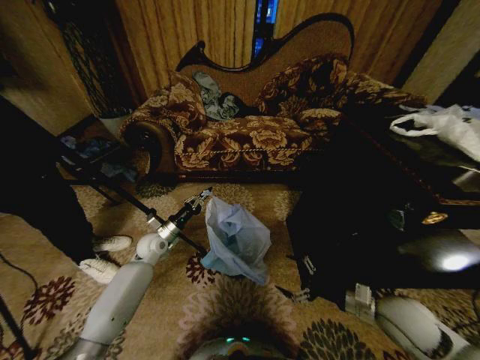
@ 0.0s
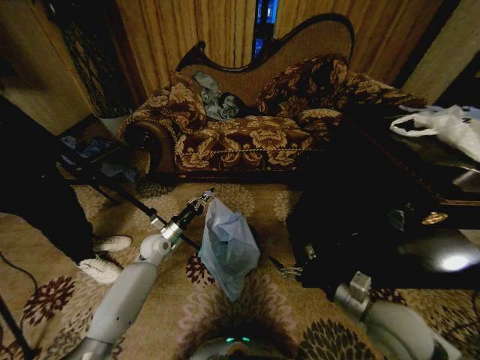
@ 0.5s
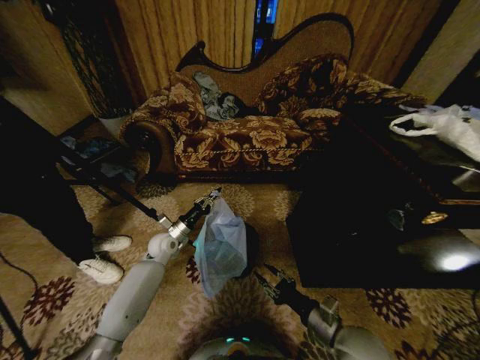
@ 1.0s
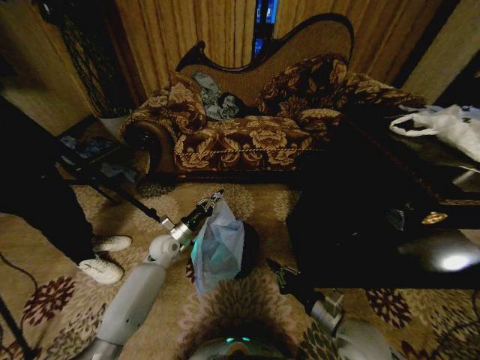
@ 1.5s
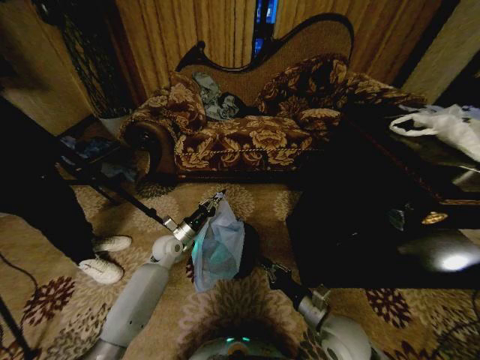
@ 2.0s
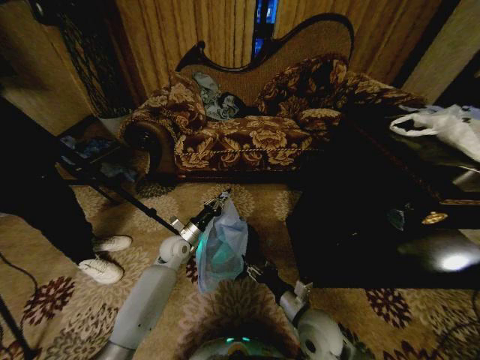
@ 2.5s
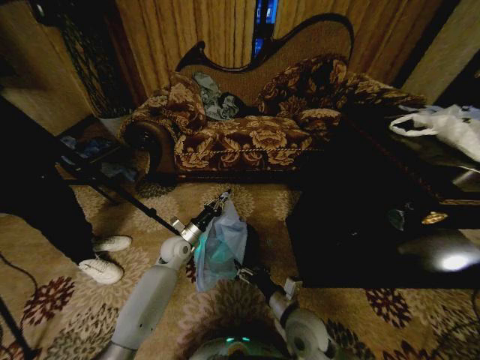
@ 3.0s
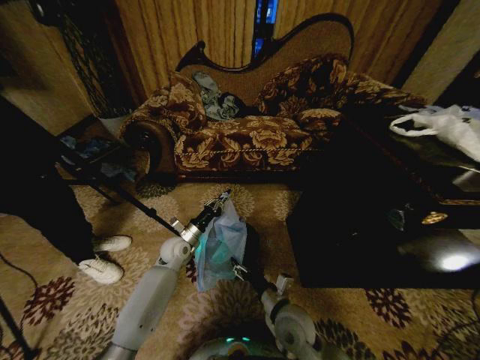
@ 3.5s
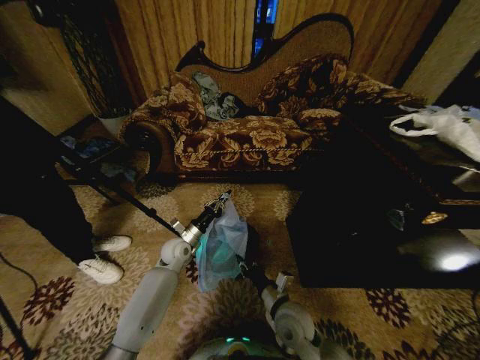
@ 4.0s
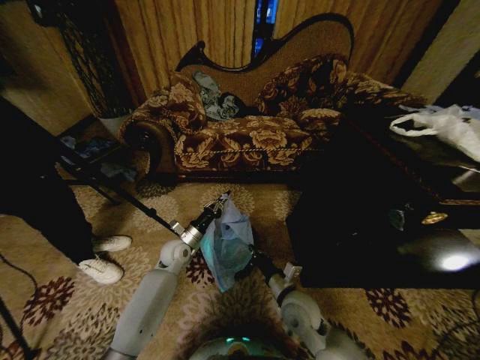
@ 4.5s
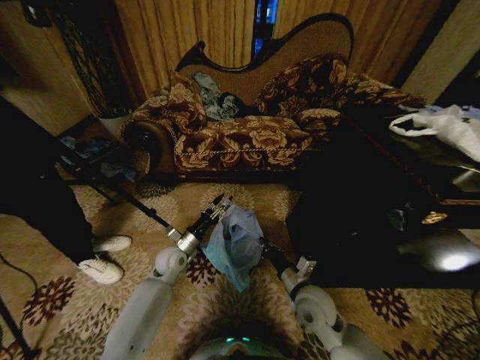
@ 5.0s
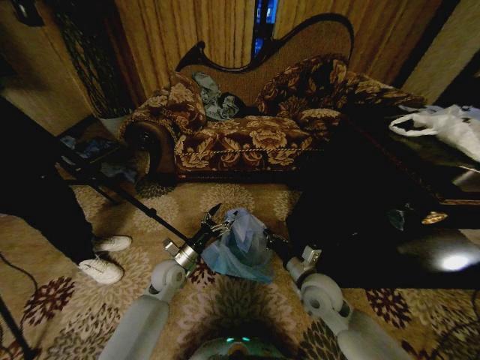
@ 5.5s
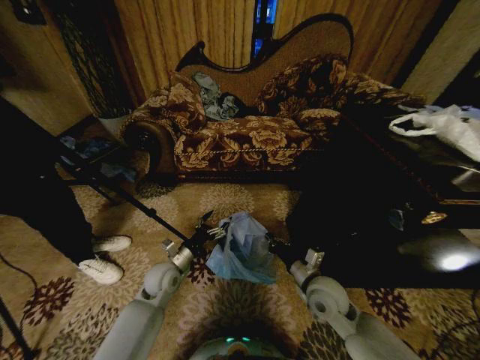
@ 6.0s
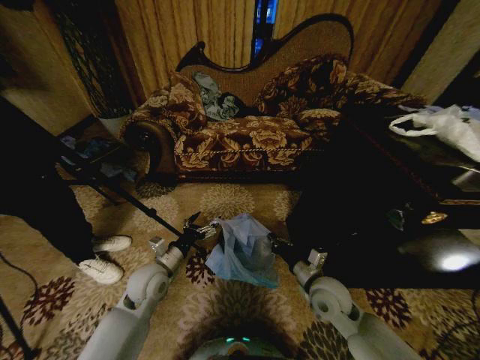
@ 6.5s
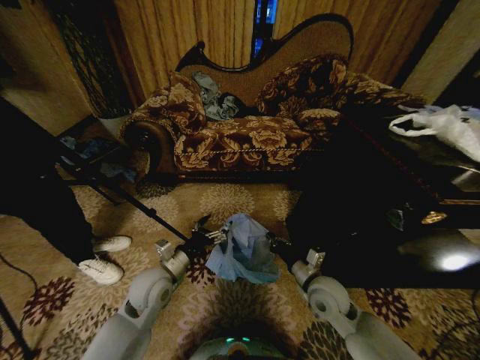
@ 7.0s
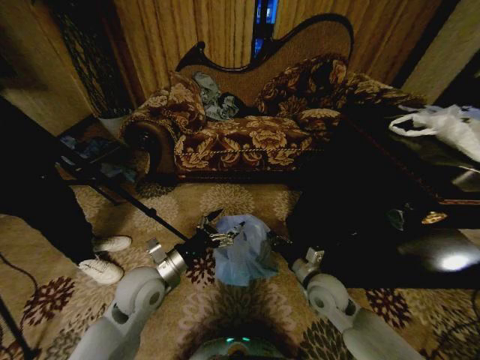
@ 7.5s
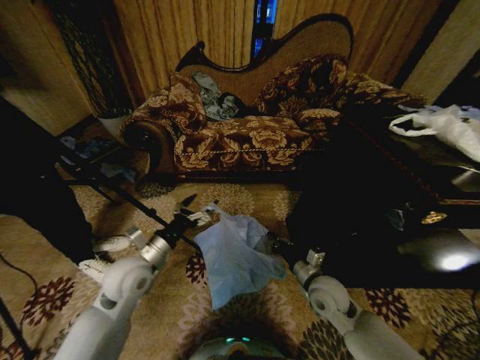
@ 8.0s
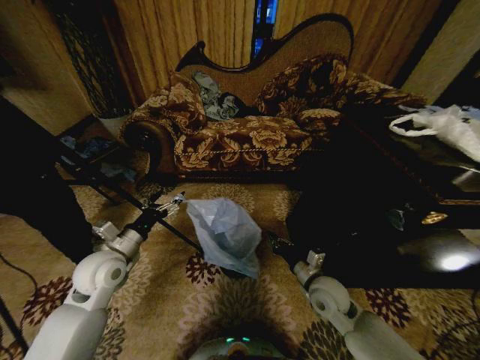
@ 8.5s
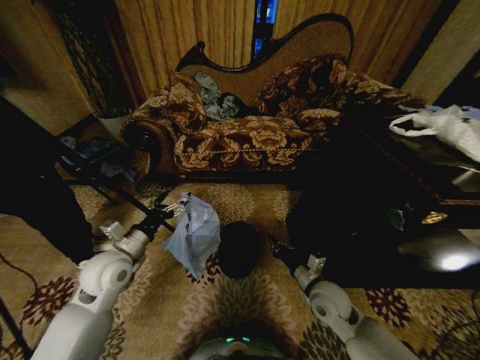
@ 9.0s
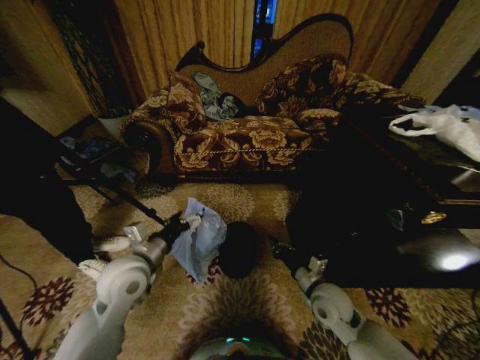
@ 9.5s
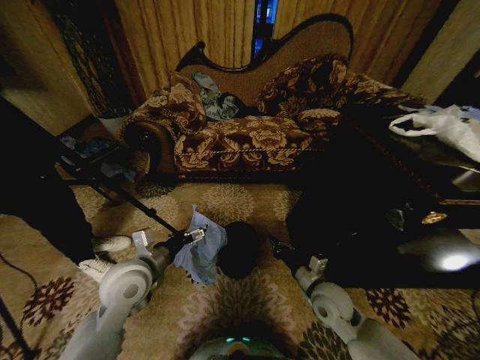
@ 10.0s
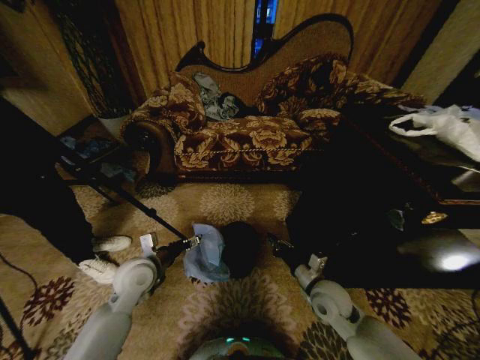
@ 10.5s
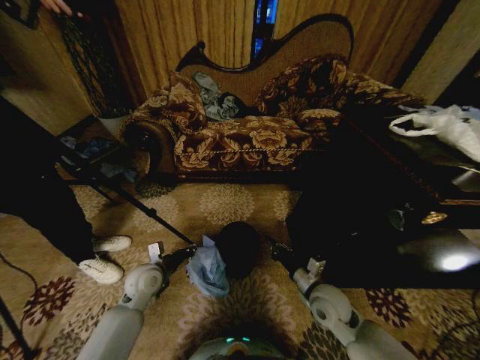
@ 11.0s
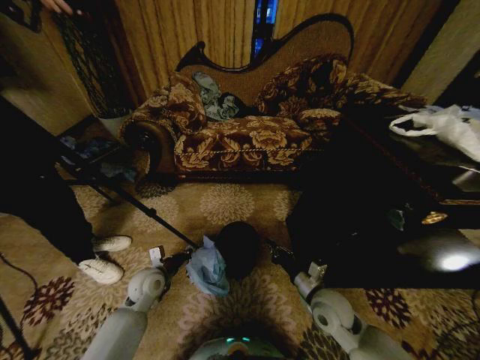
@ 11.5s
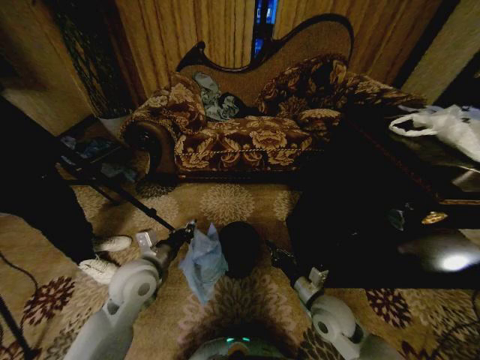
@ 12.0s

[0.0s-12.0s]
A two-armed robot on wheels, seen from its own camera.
Task of the whole recording: Place a garbage bag over the trash bin.
0.0s to 2.0s: The left gripper moves to the right, about 5 cm. Meanwhile the right gripper shifts roughly 15 cm to the left and downward, and closes.
2.0s to 4.0s: The right gripper travels to the left by roughly 10 cm, and opens up.
4.0s to 6.0s: The right gripper shifts some 10 cm to the right and upward, and closes. Meanwhile the left gripper heads backward, covering roughly 10 cm, and opens its fingers.
6.0s to 8.0s: The left gripper heads upward, covering roughly 10 cm.
8.0s to 10.0s: The left gripper reaches approximately 10 cm to the left, then returns.
10.0s to 12.0s: The left gripper goes downward and returns, approximately 15 cm each way, and closes up.

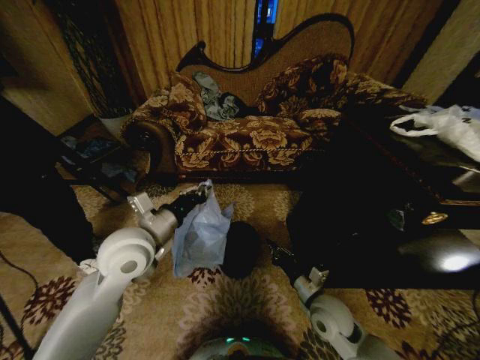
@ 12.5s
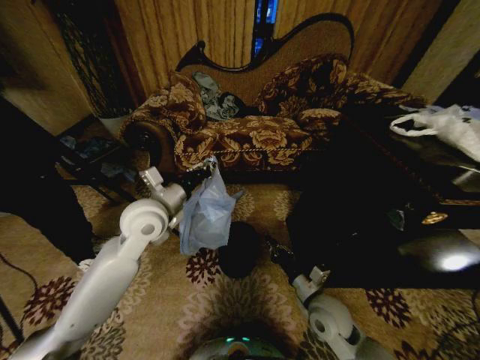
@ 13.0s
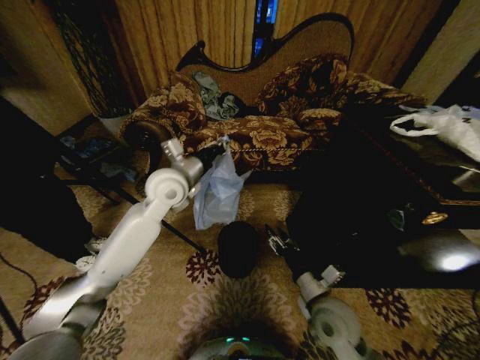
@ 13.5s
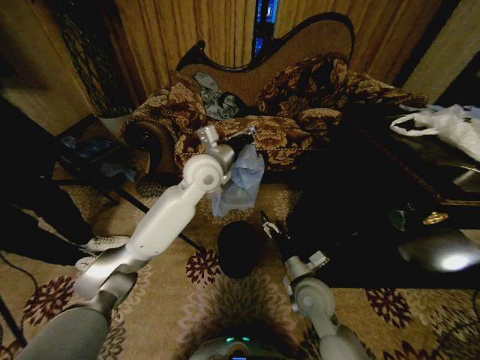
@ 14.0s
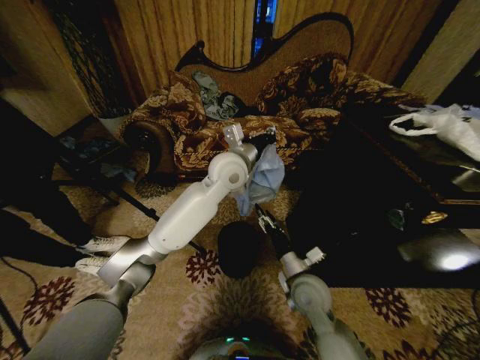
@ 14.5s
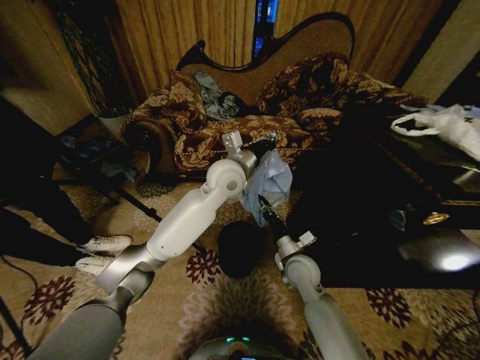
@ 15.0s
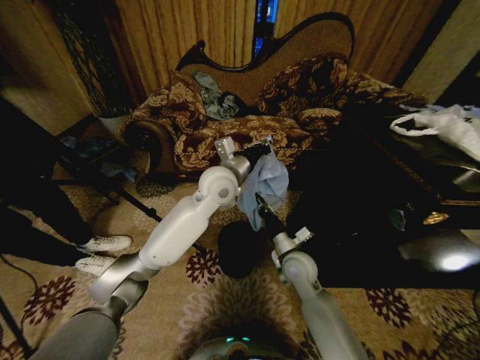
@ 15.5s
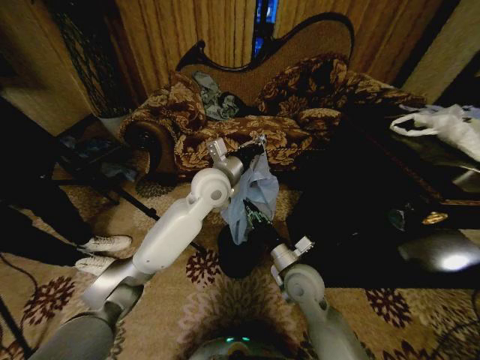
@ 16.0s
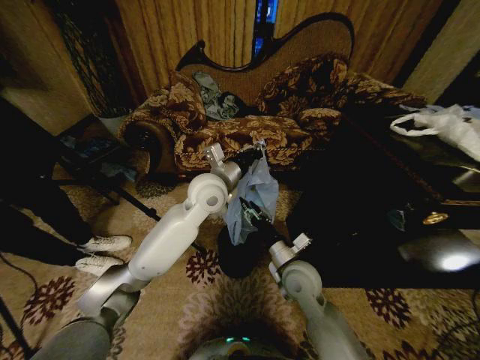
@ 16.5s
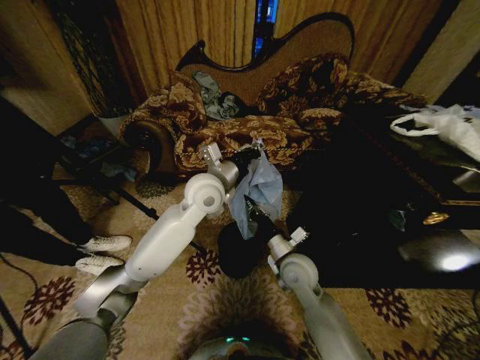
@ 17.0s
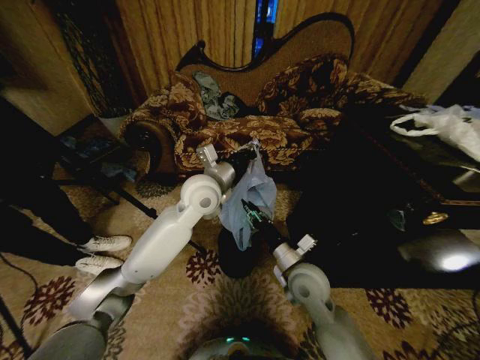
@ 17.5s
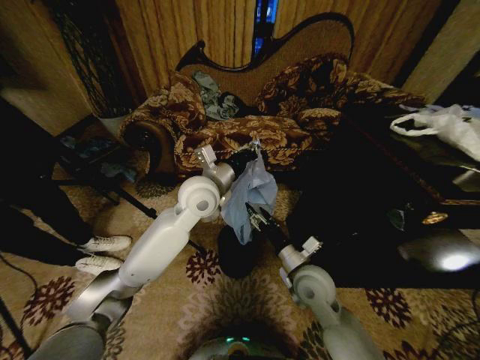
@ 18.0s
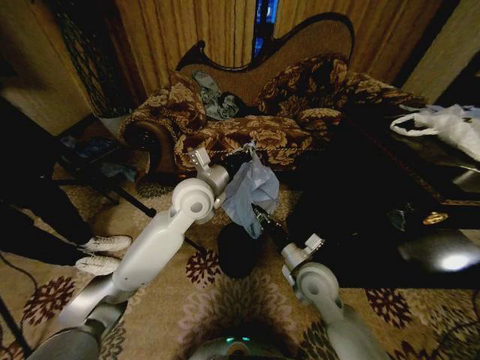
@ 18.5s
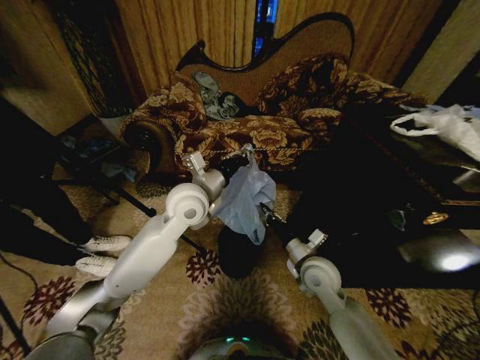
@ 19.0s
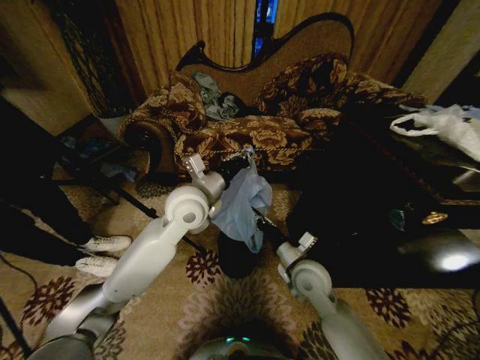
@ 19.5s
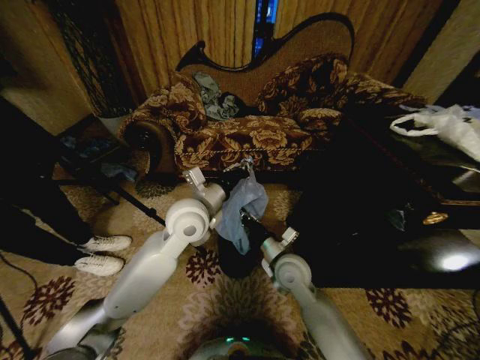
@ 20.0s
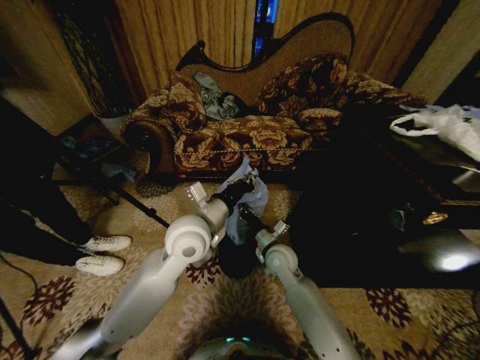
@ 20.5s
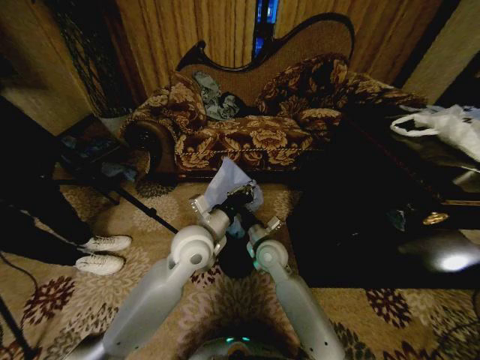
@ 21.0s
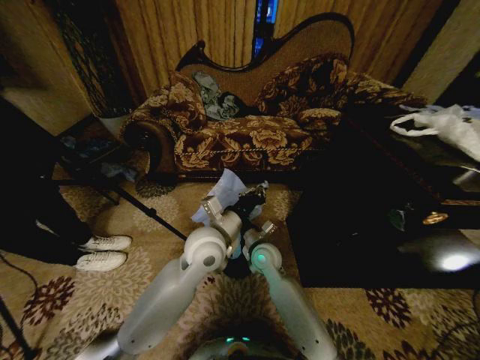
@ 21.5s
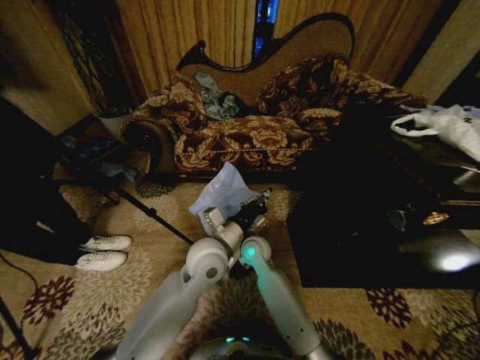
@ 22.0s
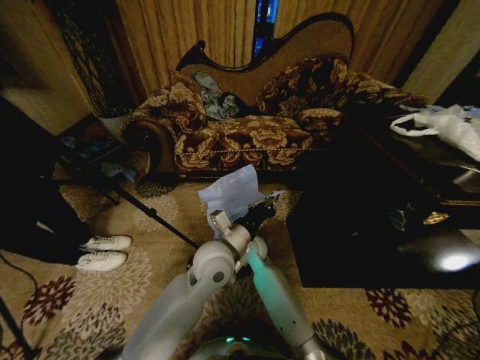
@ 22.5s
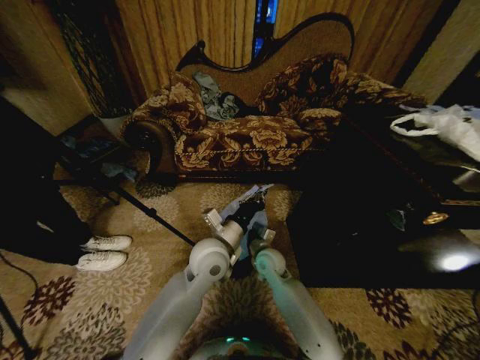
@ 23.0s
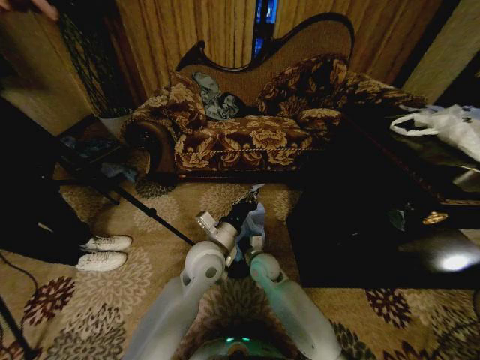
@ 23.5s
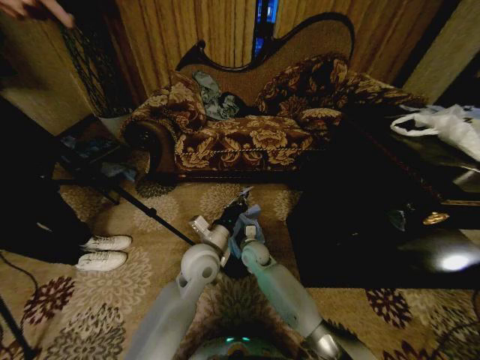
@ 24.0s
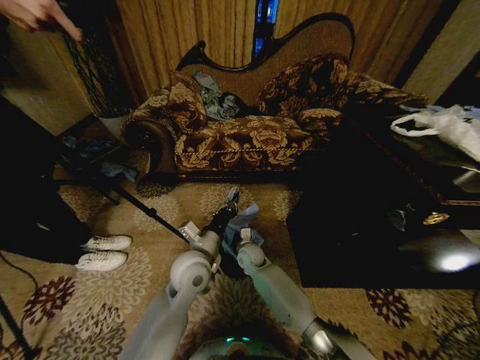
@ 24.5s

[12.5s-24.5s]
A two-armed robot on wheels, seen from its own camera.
Task of the whole recording: Place a garbage bag over the trash bin.
12.5s to 14.5s: The left gripper travels to the right, forward and upward by some 25 cm; the right gripper shifts about 5 cm to the left, and opens its fingers.
14.5s to 16.5s: The left gripper ends up about 5 cm from where it was, while the right gripper closes and opens again.
16.5s to 18.5s: The grippers stay close to where they were, moving slightly.
18.5s to 20.5s: The right gripper travels forward and to the left by about 10 cm. The left gripper shifts about 10 cm backward.
20.5s to 22.5s: The left gripper shifts roughly 10 cm downward and to the right. Meanwhile the right gripper moves to the left, some 10 cm.
22.5s to 24.5s: The left gripper moves to the left, about 5 cm. Meanwhile the right gripper heads downward, covering approximately 10 cm.

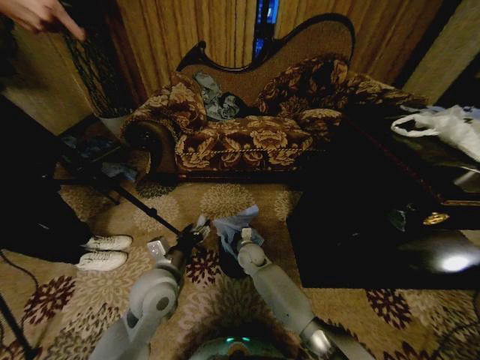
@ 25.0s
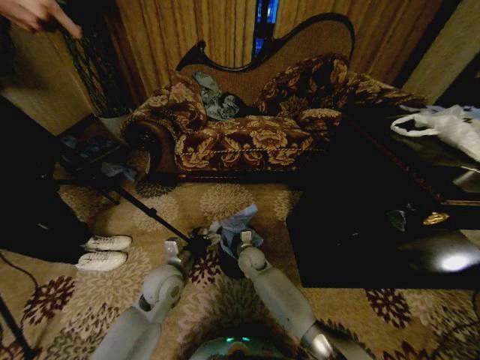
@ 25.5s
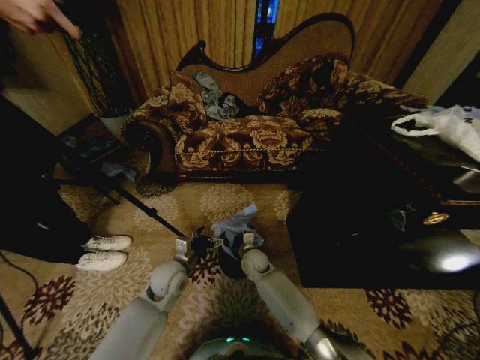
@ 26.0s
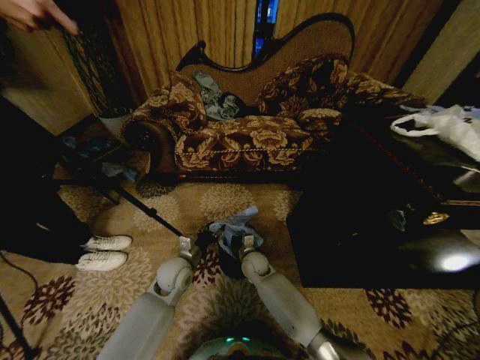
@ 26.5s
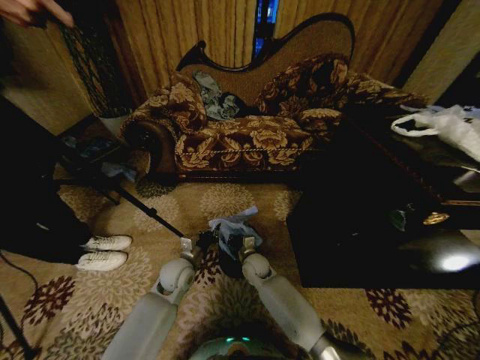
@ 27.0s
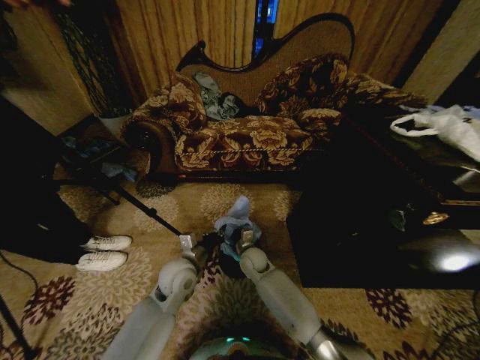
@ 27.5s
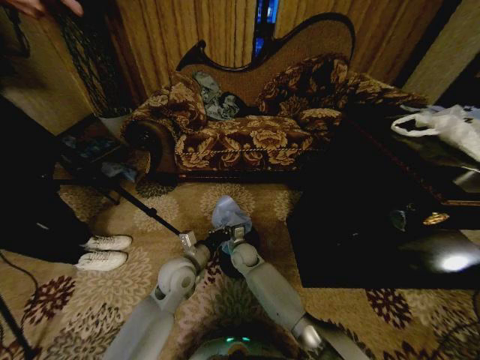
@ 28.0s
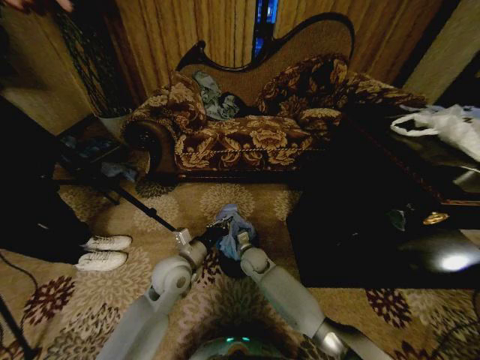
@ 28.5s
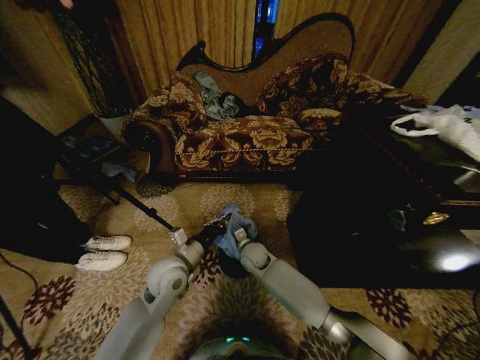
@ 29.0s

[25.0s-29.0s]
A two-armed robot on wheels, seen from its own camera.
Task of the whole recording: Place a garbage bag over the trash bin.
25.0s to 27.0s: The left gripper shifts approximately 15 cm downward and forward, and closes.
27.0s to 29.0s: The left gripper moves upward, roughly 10 cm. Meanwhile the right gripper shifts by about 5 cm.
